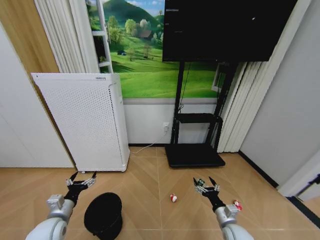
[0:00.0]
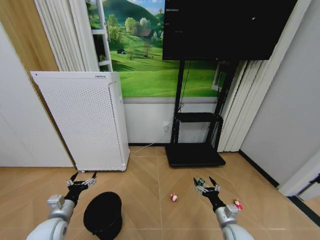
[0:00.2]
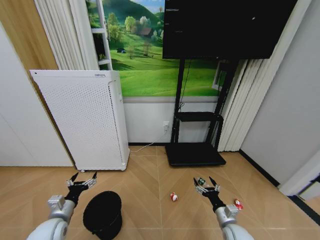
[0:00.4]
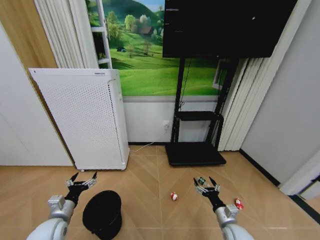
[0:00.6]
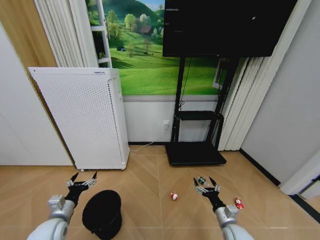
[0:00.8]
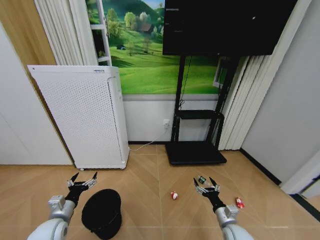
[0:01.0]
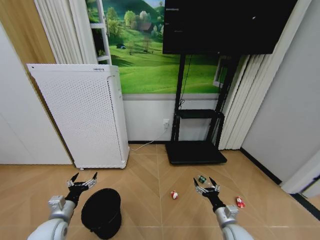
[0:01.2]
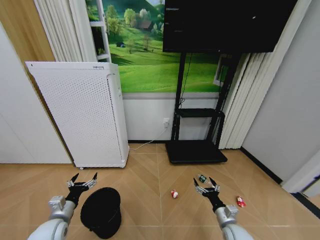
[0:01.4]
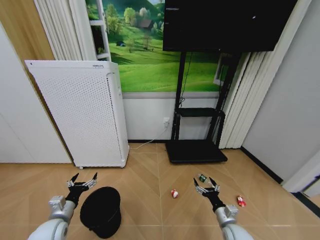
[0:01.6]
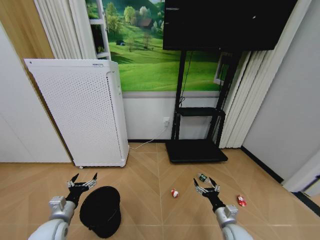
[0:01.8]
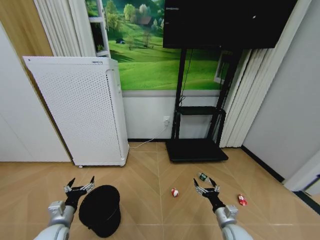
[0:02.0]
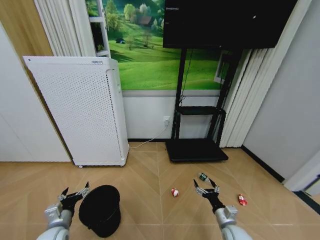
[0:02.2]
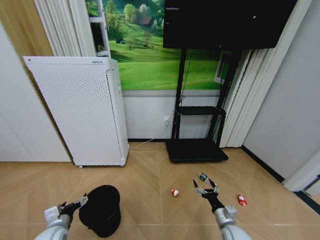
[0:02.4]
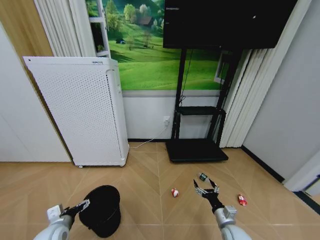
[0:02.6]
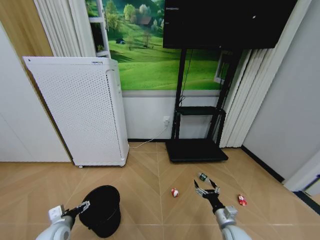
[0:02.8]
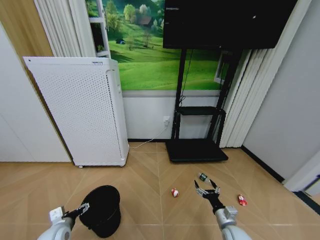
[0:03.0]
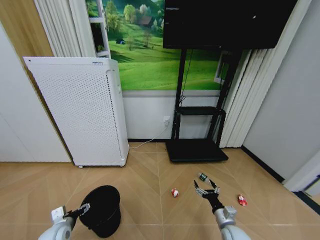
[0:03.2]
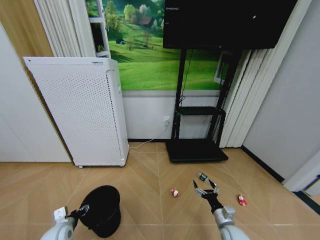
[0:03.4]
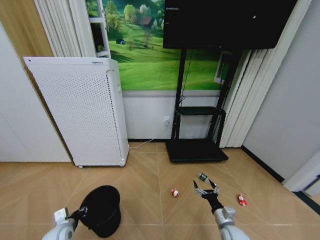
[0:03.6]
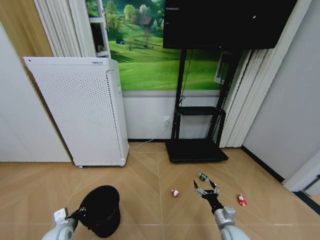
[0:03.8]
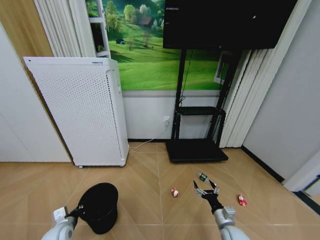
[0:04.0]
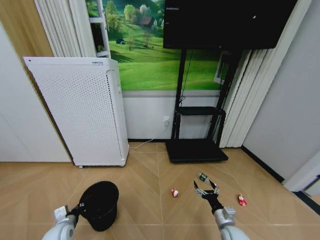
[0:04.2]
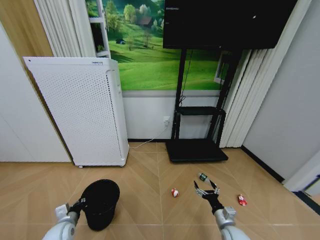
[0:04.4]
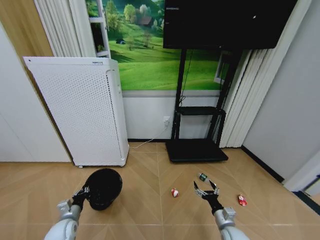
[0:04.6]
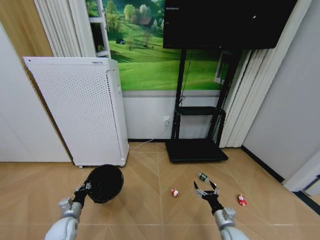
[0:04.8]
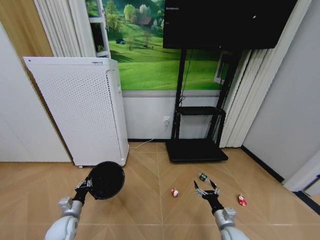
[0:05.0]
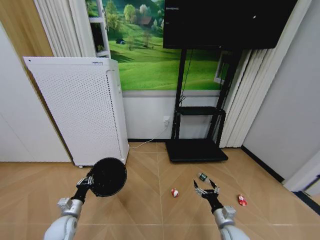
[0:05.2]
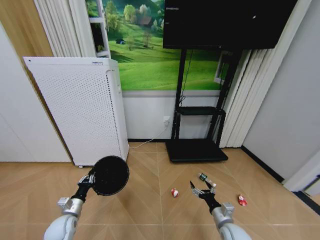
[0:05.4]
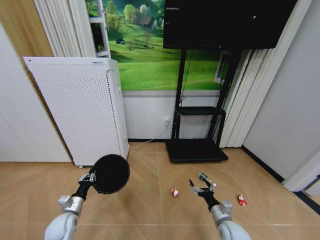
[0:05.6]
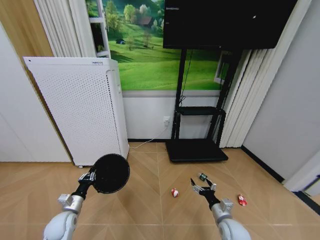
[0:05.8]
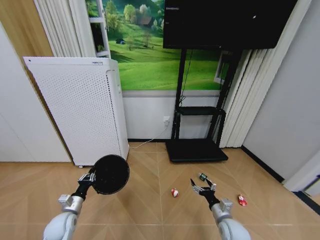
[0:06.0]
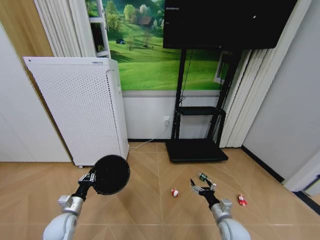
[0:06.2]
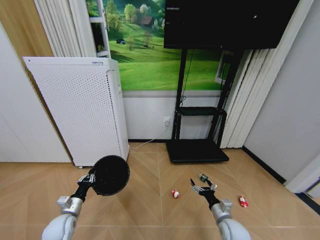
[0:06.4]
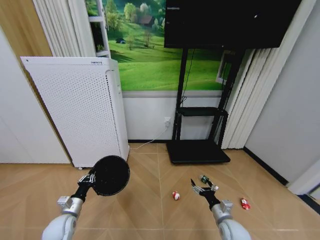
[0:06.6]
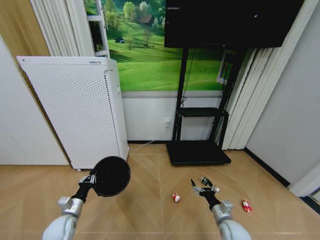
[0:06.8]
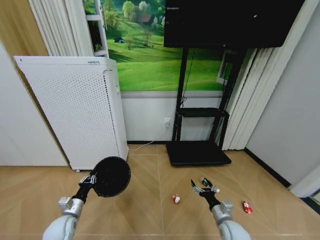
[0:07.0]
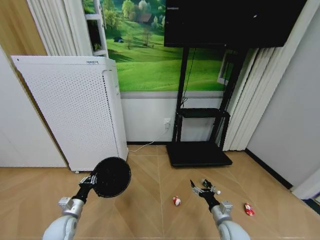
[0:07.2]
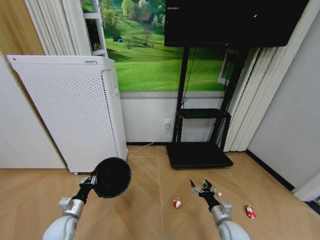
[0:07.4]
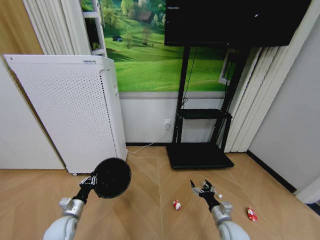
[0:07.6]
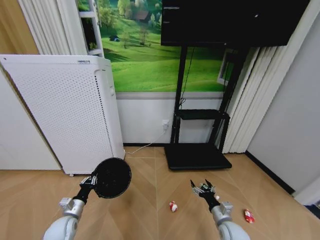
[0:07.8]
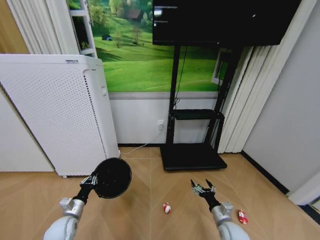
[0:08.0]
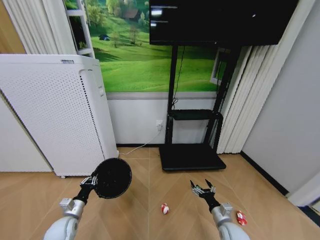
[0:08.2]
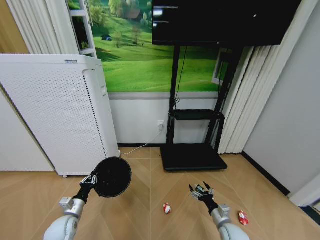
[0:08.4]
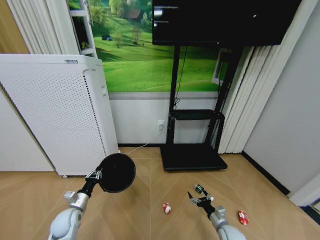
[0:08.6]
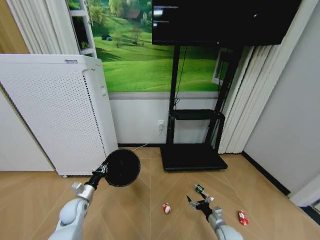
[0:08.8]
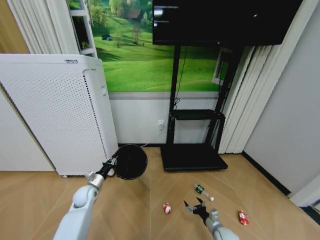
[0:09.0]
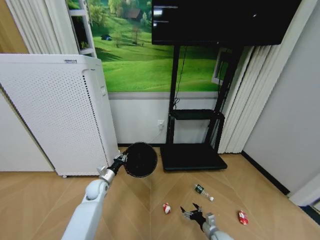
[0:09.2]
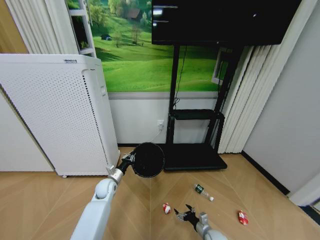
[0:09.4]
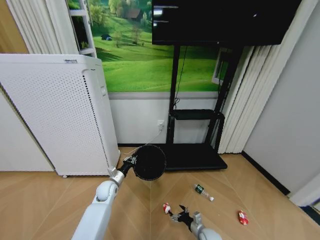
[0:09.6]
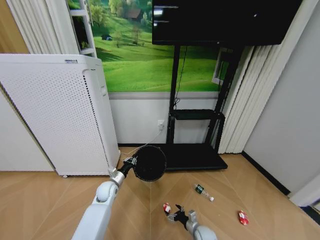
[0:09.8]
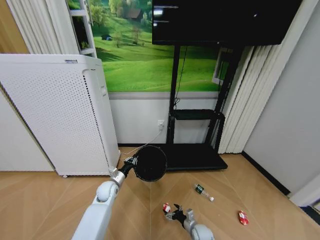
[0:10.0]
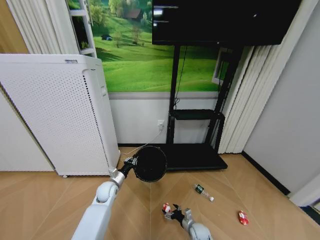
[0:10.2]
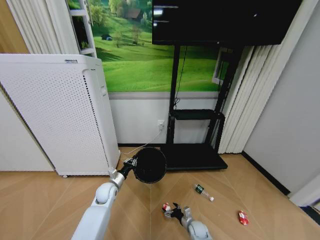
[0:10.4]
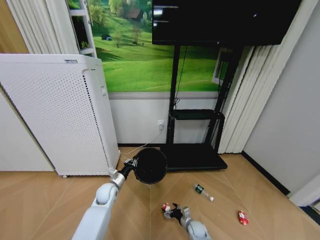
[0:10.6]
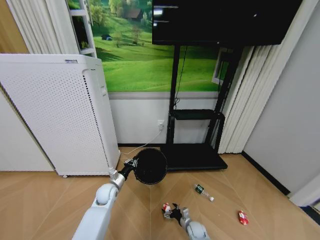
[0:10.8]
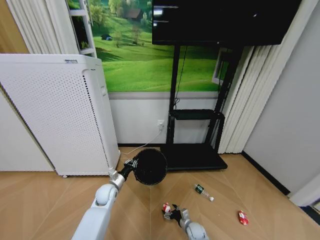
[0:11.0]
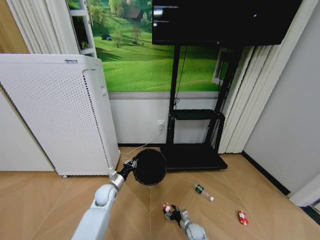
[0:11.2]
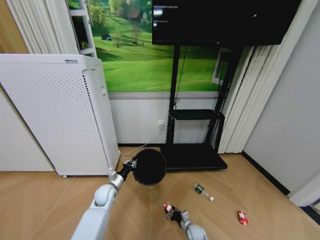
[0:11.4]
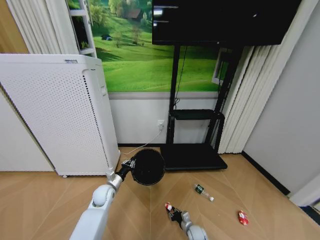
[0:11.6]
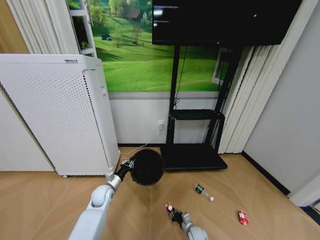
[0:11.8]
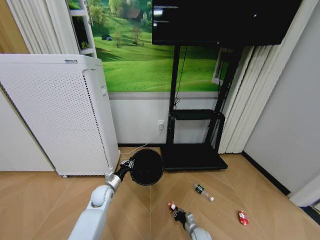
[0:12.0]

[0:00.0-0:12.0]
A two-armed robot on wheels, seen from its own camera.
Task of the whole recording: Pick up the trash bin and place the garbage on the floor into it.
0:00.0 to 0:01.6: The two grippers keep their place.
0:03.0 to 0:04.4: The left gripper closes up.
0:07.6 to 0:09.0: The left gripper heads forward, covering some 10 cm. The right gripper goes about 10 cm downward.
0:09.0 to 0:10.4: The left gripper shifts roughly 10 cm to the right, while the right gripper travels to the left and downward by some 10 cm.
0:10.4 to 0:12.0: The right gripper closes up.

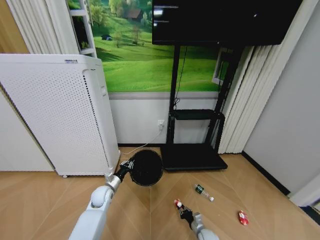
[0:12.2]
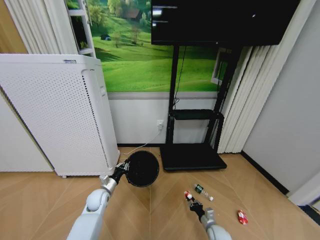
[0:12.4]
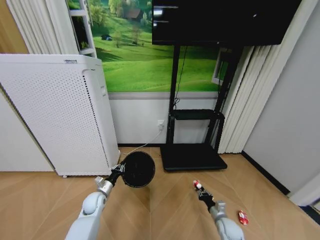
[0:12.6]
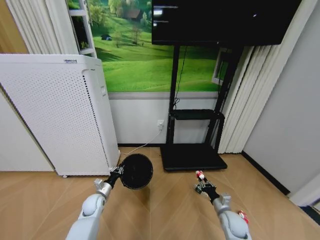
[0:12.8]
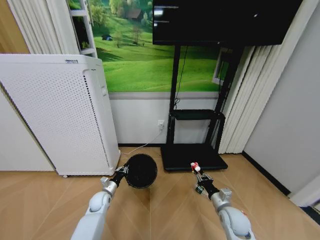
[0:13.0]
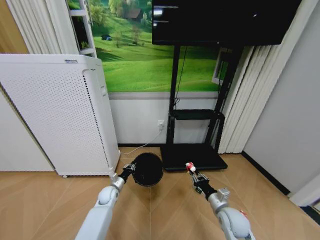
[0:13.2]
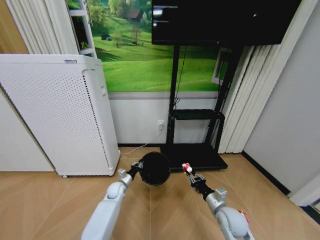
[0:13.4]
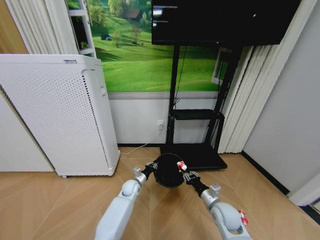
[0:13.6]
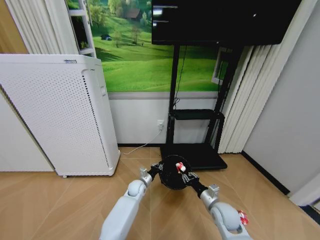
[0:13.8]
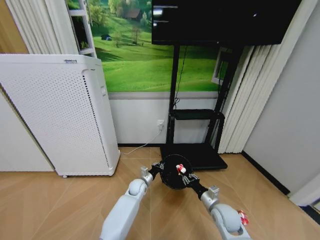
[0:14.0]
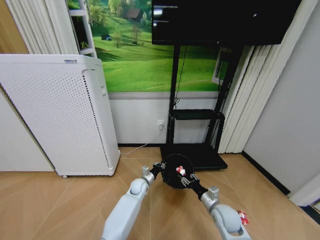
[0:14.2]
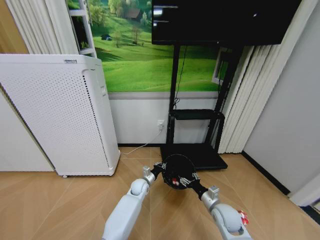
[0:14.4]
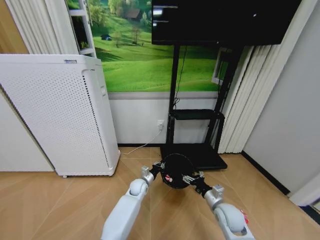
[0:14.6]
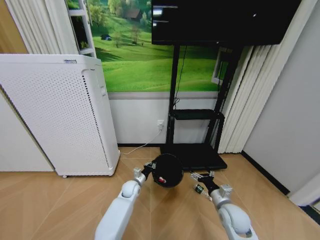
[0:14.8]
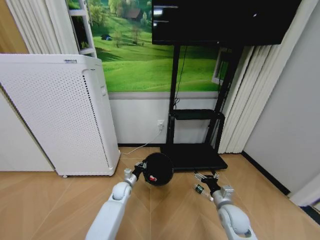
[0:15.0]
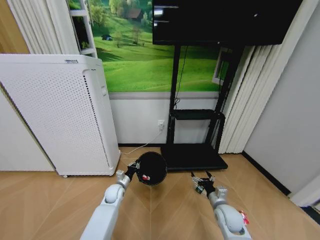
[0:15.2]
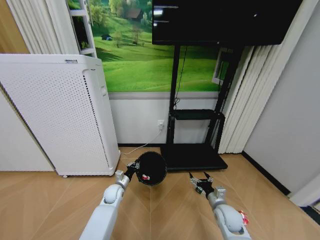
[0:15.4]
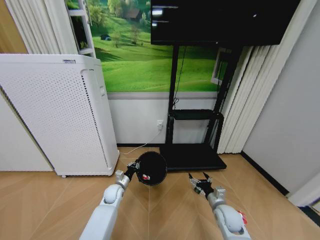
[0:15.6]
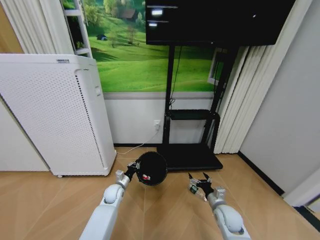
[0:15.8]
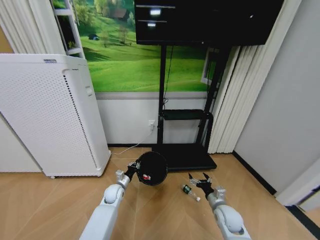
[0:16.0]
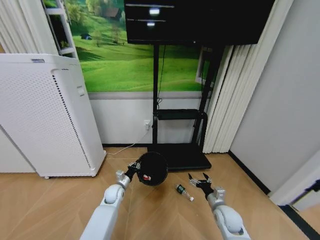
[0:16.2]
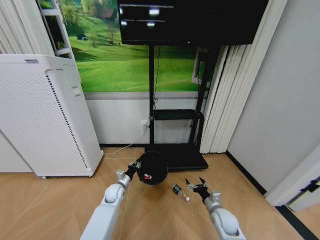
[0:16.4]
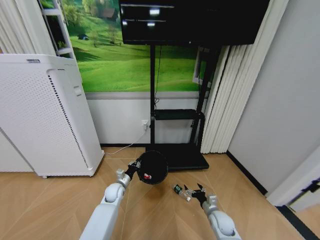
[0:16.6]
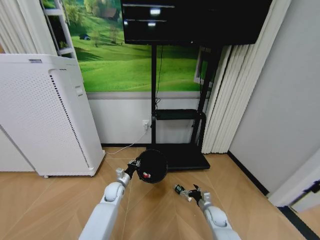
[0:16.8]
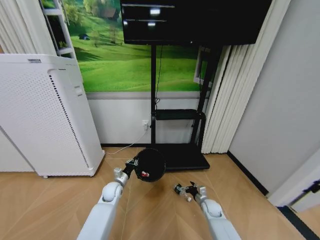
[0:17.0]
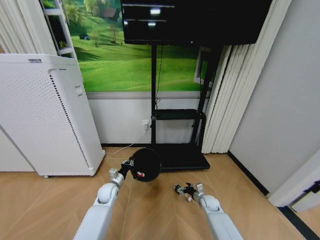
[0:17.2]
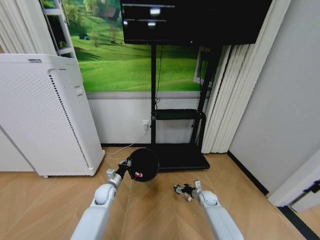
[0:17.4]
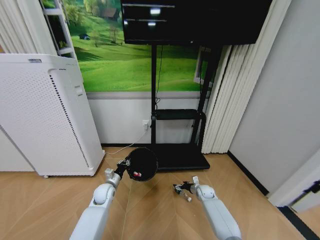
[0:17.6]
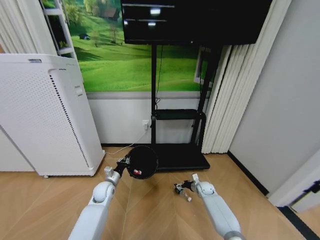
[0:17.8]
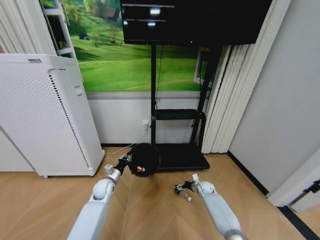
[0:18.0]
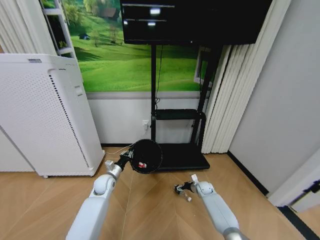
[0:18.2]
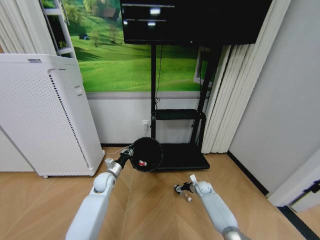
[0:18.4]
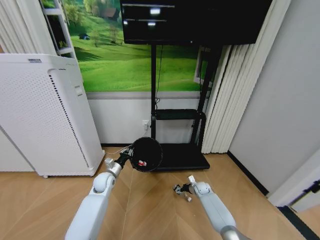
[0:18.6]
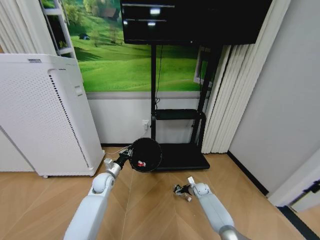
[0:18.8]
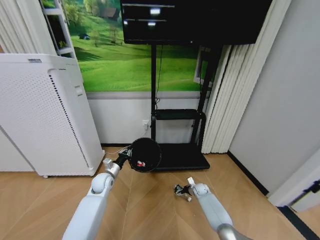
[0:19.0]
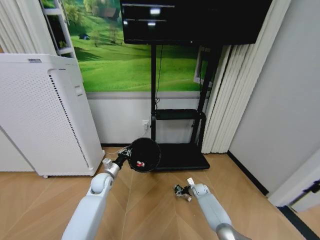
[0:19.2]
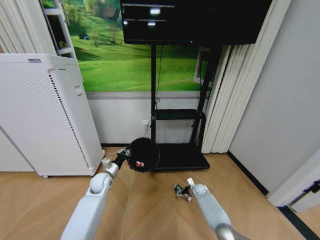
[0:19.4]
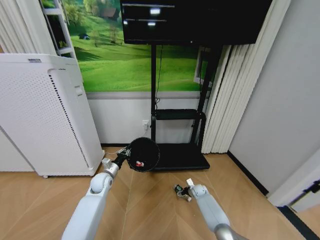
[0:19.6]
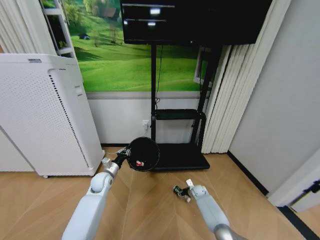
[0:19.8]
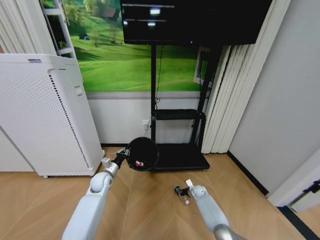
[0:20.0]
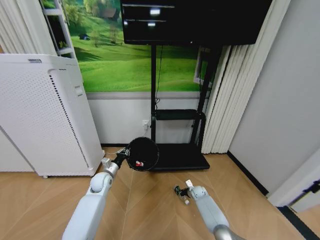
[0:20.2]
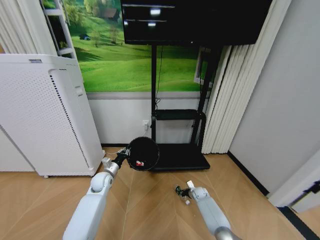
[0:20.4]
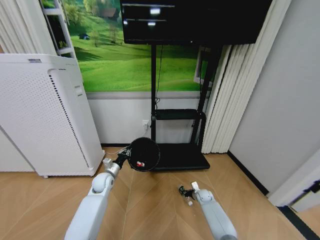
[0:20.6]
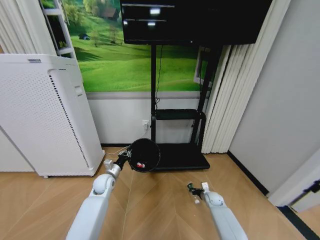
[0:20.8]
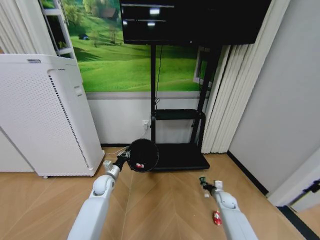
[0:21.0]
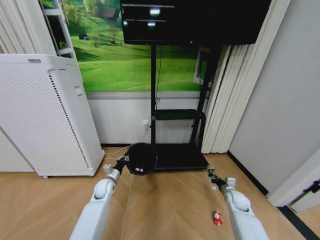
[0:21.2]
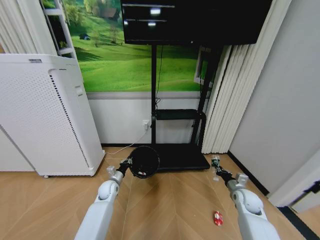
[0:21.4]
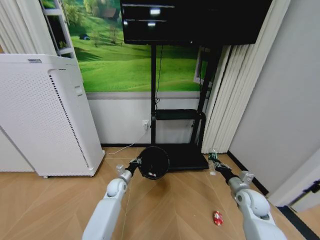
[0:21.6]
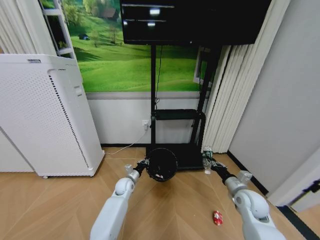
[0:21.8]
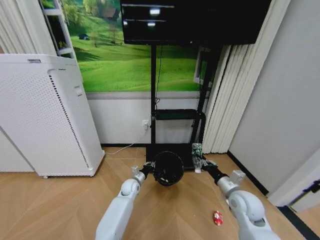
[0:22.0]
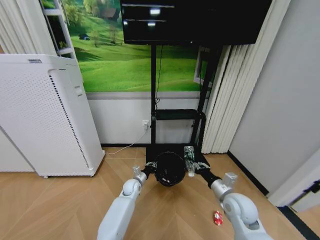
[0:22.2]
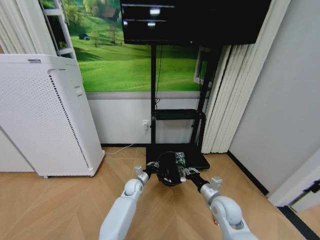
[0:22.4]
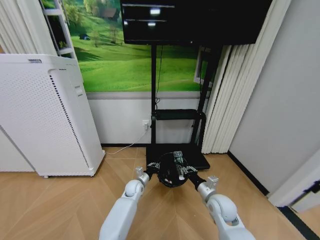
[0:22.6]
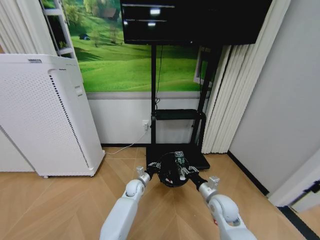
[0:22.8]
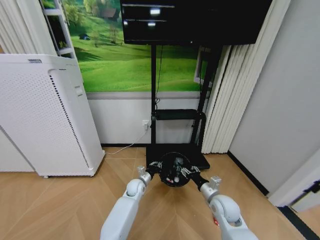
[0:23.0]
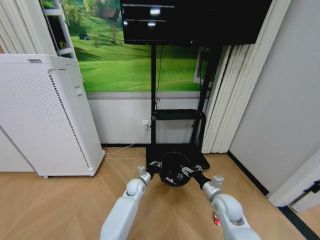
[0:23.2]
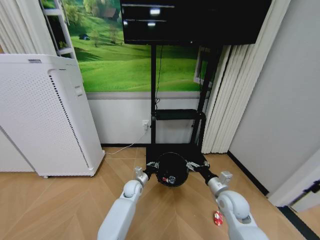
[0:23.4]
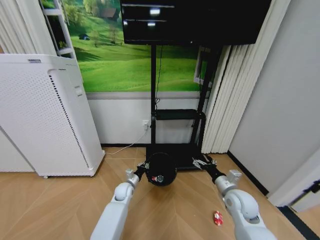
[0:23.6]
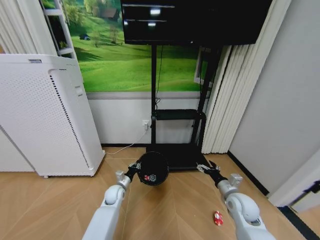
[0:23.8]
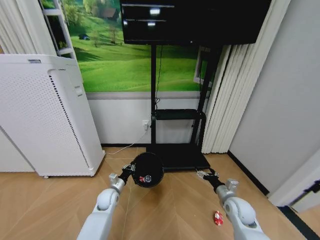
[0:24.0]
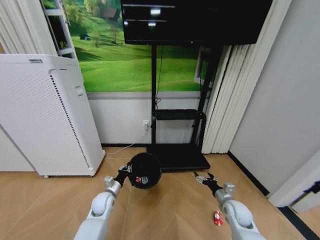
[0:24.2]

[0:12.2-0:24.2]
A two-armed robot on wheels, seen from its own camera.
Task of the whole recording: Pick up the trash bin and place the garbage on the floor into it.
0:12.2 to 0:13.8: The left gripper travels to the right by some 15 cm, while the right gripper heads upward, covering some 25 cm.
0:13.8 to 0:15.2: The right gripper opens up; the left gripper moves to the left, approximately 10 cm.
0:15.2 to 0:16.6: The right gripper heads downward, covering about 10 cm.
0:16.6 to 0:18.2: The left gripper travels upward by about 5 cm, while the right gripper travels forward by about 15 cm.
0:18.2 to 0:19.8: The right gripper closes its fingers.
0:19.8 to 0:21.2: The right gripper heads upward, to the right and backward, covering approximately 20 cm, and closes up.
0:21.2 to 0:22.6: The right gripper is displaced to the left and upward by some 20 cm, while the left gripper goes roughly 15 cm to the right.
0:22.6 to 0:24.2: The left gripper heads to the left and backward, covering about 15 cm. The right gripper moves to the right and downward, approximately 10 cm, and opens up.
